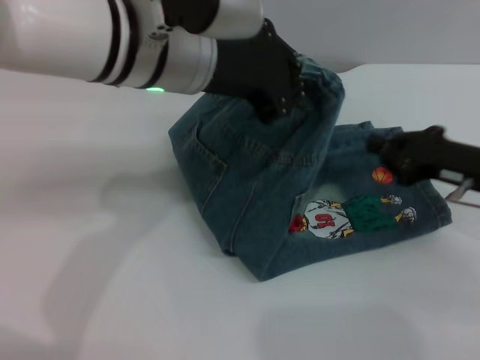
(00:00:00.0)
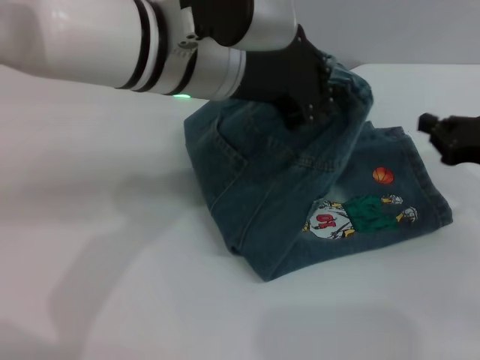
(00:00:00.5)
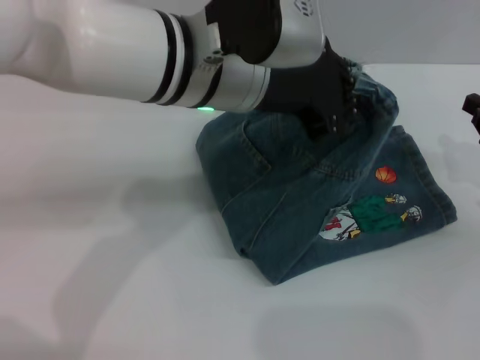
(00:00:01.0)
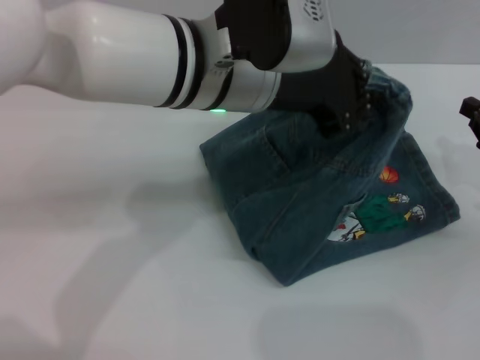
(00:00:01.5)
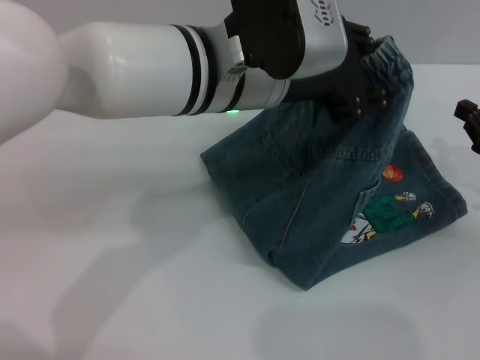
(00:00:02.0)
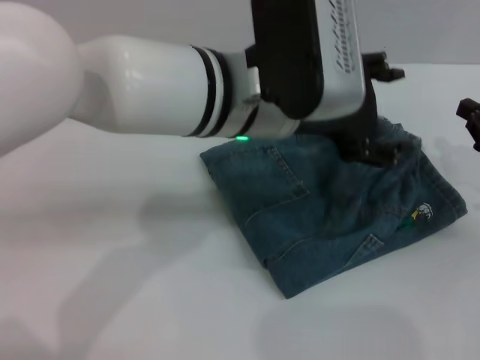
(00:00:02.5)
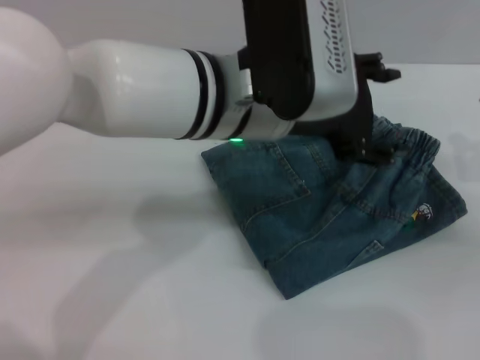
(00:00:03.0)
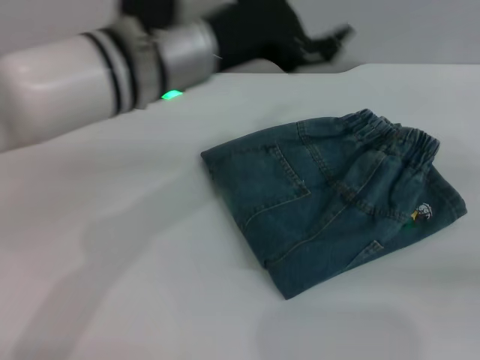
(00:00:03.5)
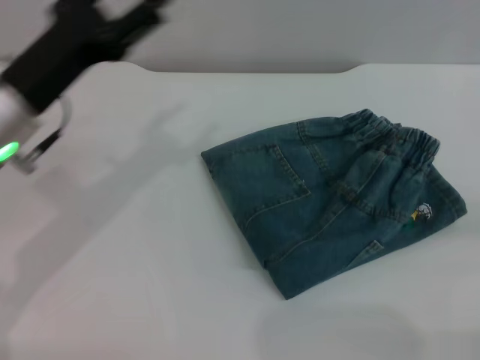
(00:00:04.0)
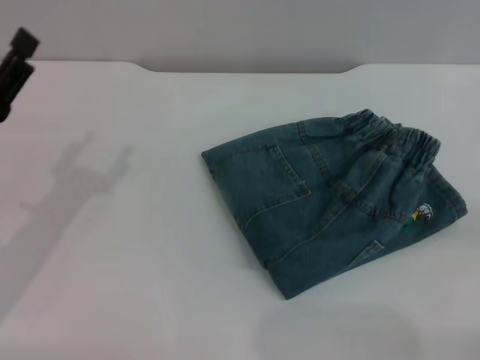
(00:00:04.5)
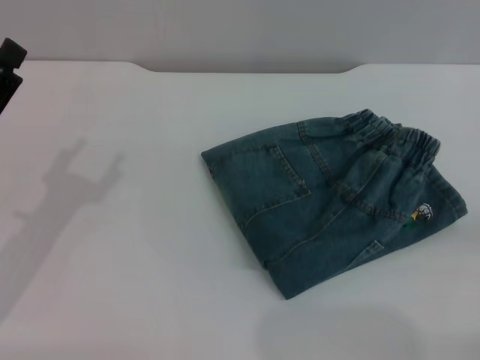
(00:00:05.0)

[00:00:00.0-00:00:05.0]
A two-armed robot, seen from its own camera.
Step, 00:00:00.0 to 00:00:02.5: Fold the pants from left to right with the left gripper.
00:00:00.0 to 00:00:02.5: Both grippers move to the right, about 5 cm. The left gripper opens up.
00:00:02.5 to 00:00:05.0: The left gripper is displaced to the left and downward by about 30 cm; the right gripper shifts some 15 cm backward and to the right.
